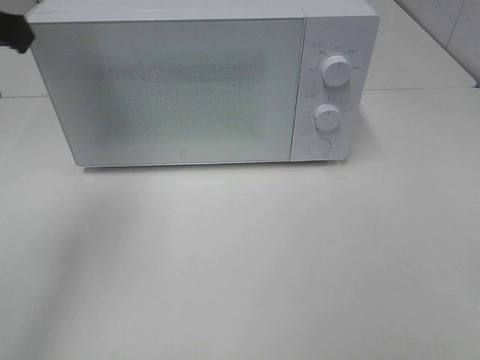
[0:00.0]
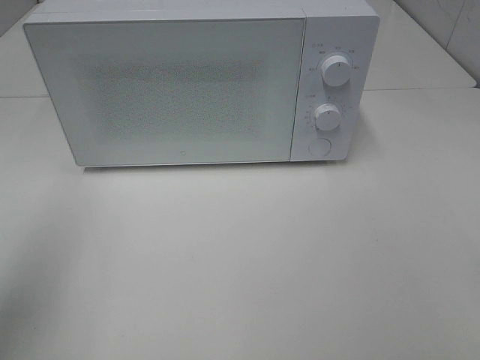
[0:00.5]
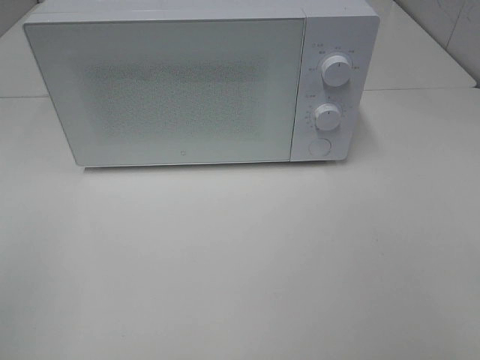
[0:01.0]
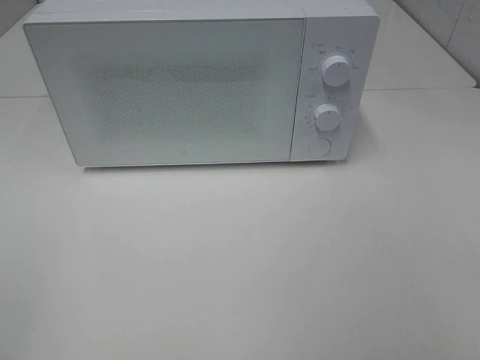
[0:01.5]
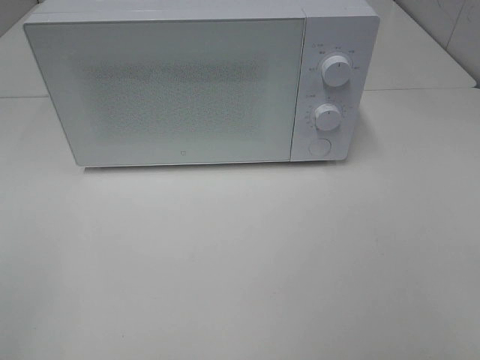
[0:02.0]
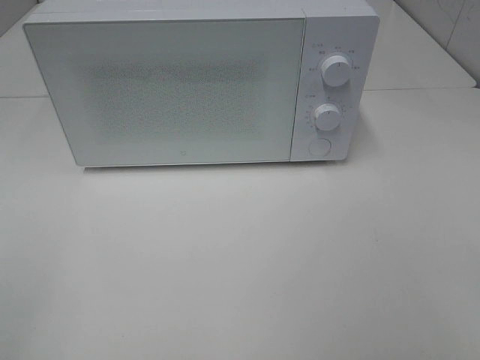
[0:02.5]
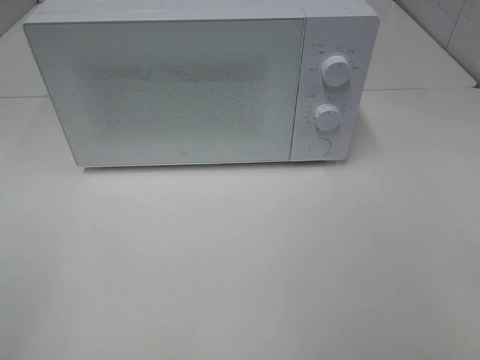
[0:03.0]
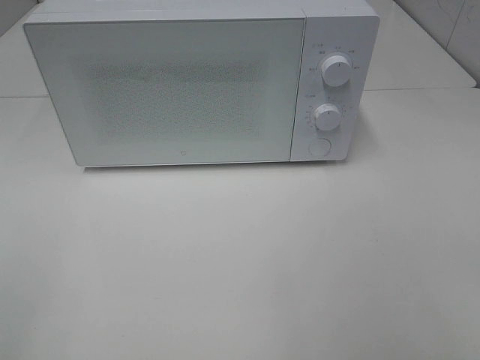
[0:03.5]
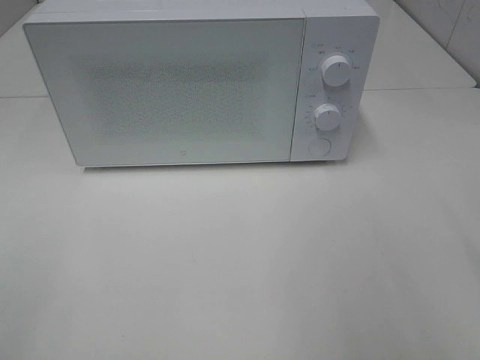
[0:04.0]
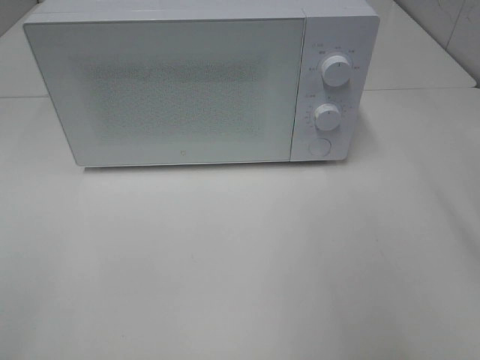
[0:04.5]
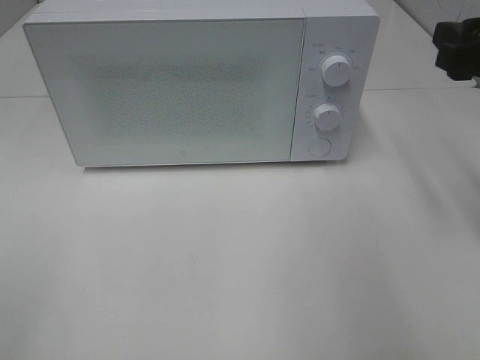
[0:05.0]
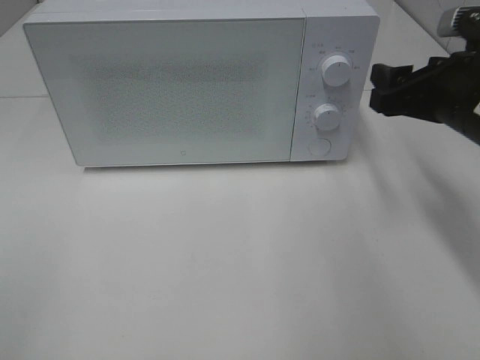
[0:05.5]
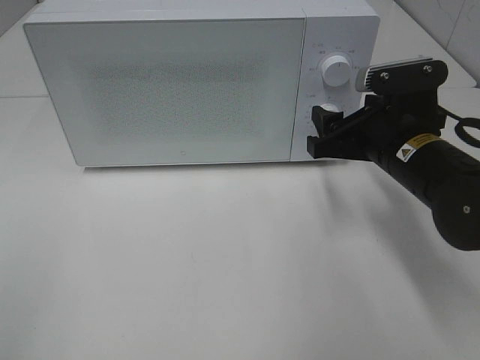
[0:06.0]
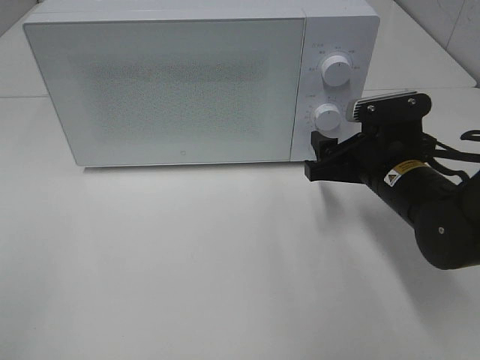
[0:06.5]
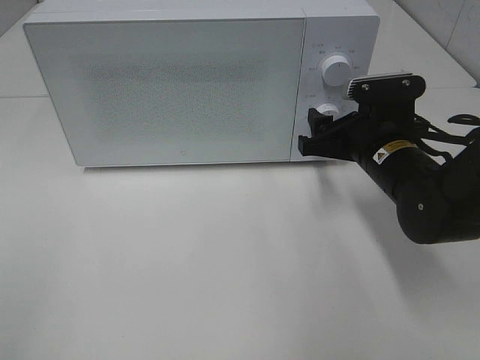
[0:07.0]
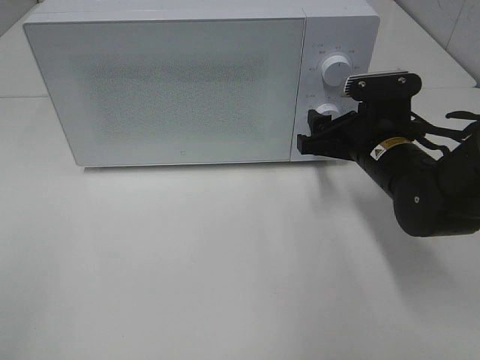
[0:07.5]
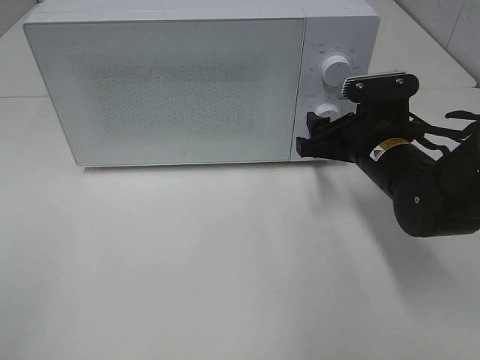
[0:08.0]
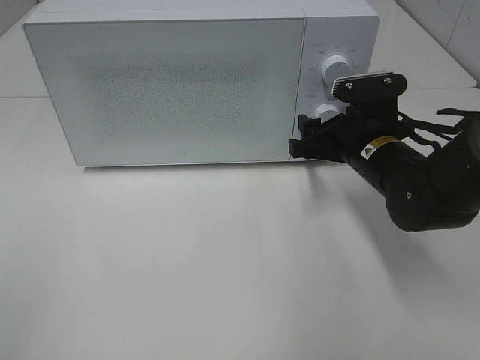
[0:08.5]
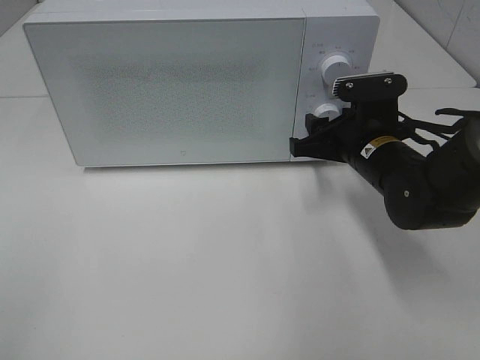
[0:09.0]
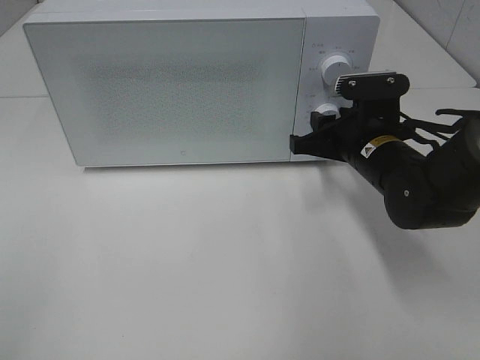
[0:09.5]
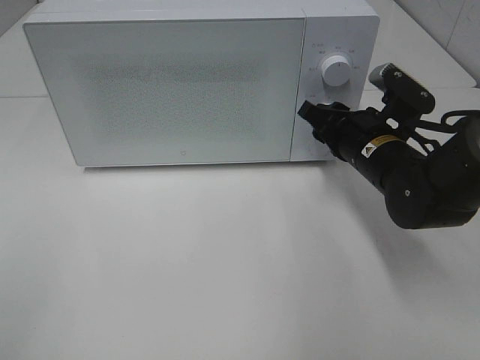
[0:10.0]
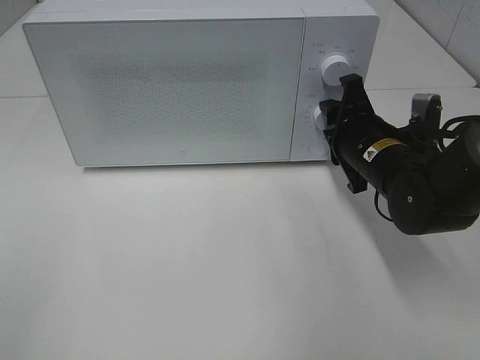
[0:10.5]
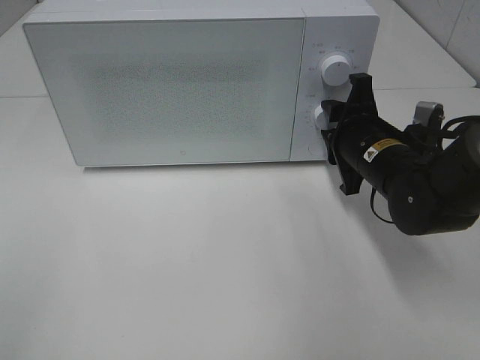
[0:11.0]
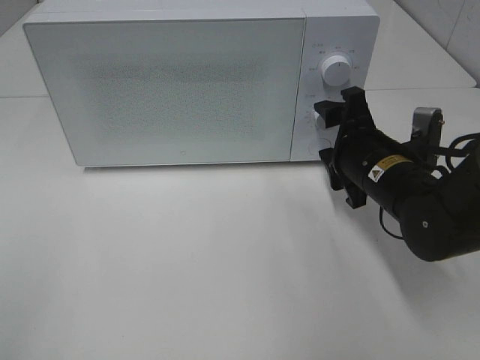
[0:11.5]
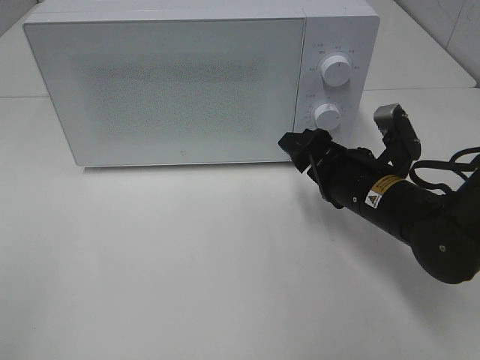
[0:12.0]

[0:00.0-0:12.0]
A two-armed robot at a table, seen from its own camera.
Task of the whole recording: Heat the burger.
Step, 0:00.0 to 0:11.0: Right hand: twist timer button.
0:00.0 to 0:02.0: The left gripper is displaced backward by about 30 cm.
0:04.0 to 0:06.0: The right gripper travels forward, downward and to the left by about 25 cm.
0:06.0 to 0:08.0: The grippers stay close to where they were, moving slightly.
0:08.0 to 0:10.0: The right gripper closes its fingers.
0:10.0 to 0:12.0: The right gripper changes place by approximately 5 cm, and opens its fingers.

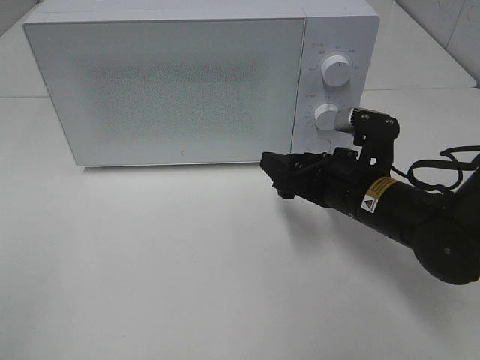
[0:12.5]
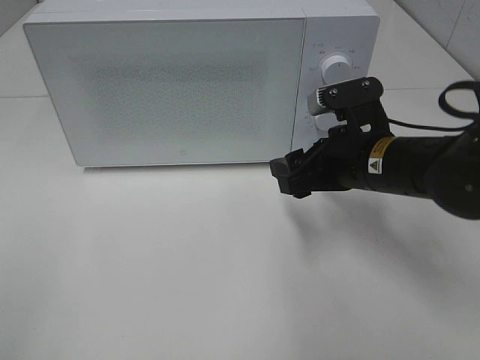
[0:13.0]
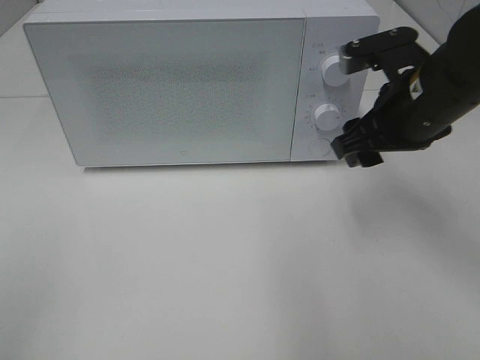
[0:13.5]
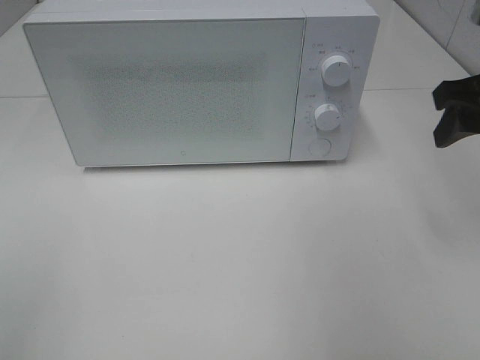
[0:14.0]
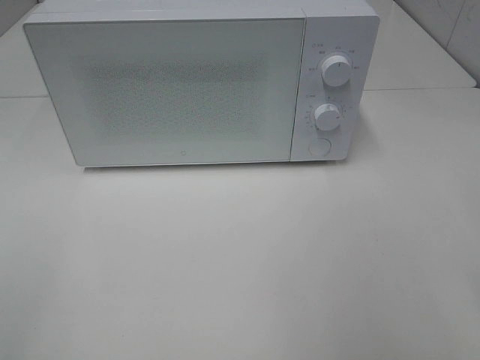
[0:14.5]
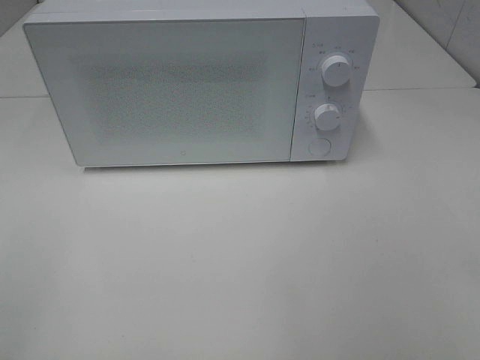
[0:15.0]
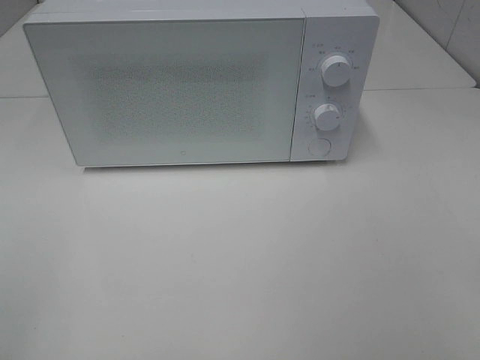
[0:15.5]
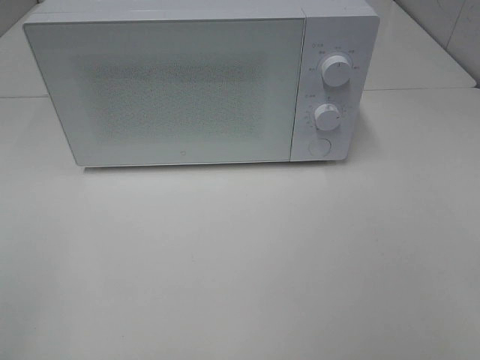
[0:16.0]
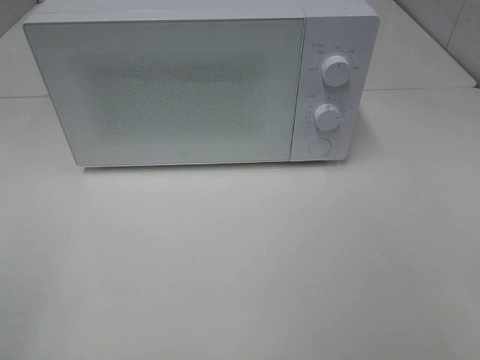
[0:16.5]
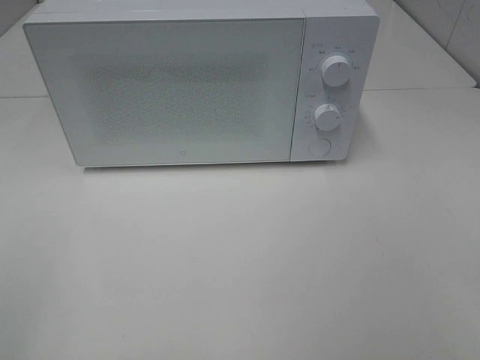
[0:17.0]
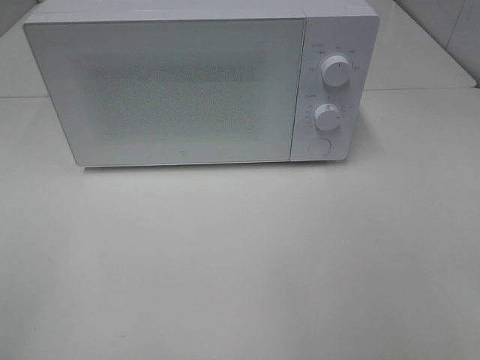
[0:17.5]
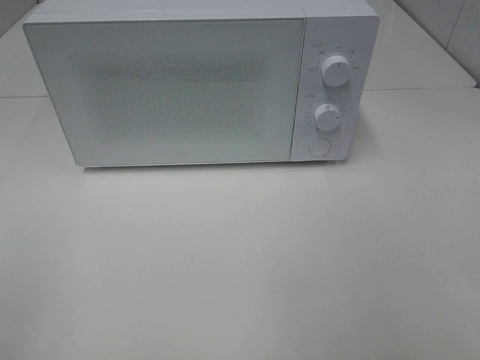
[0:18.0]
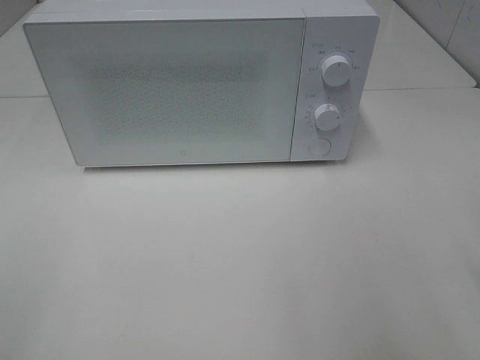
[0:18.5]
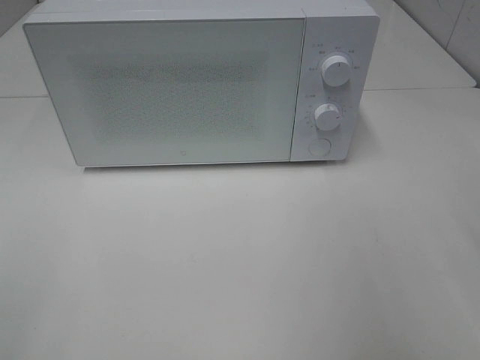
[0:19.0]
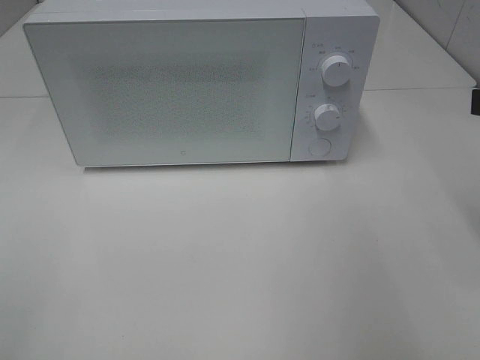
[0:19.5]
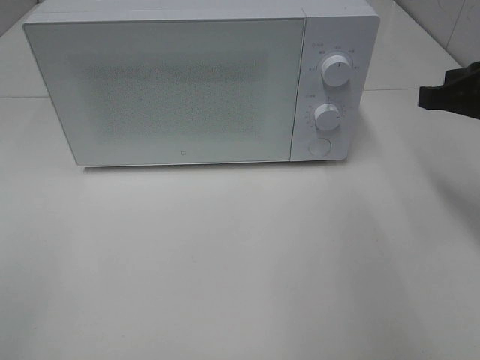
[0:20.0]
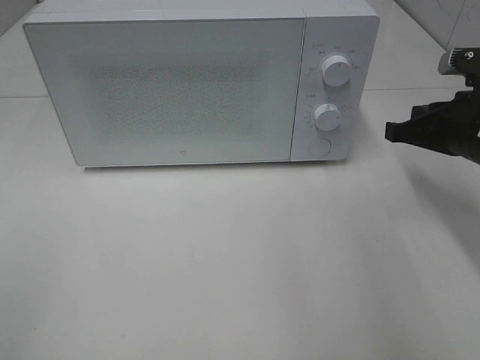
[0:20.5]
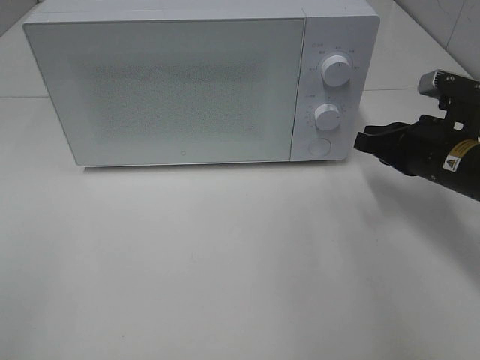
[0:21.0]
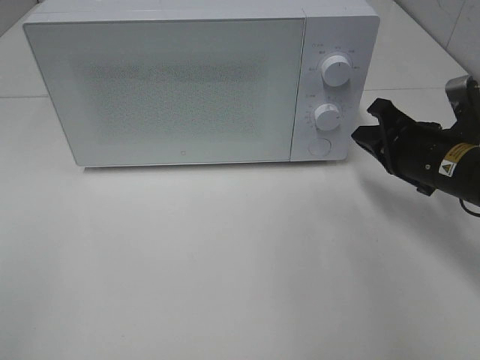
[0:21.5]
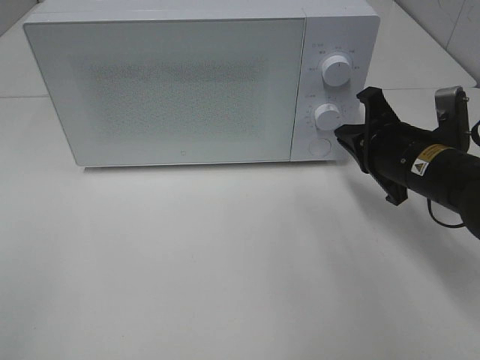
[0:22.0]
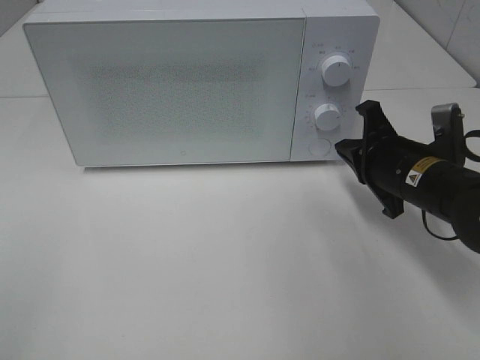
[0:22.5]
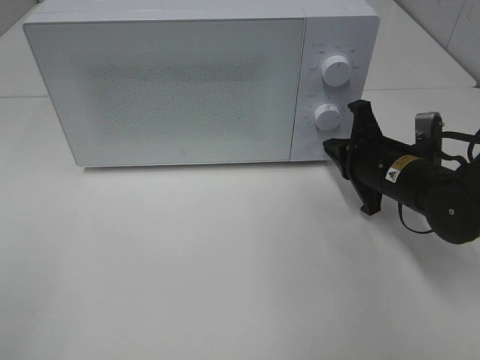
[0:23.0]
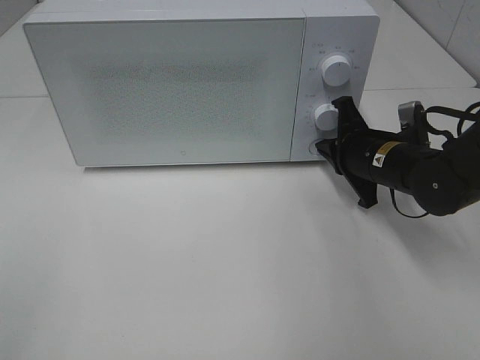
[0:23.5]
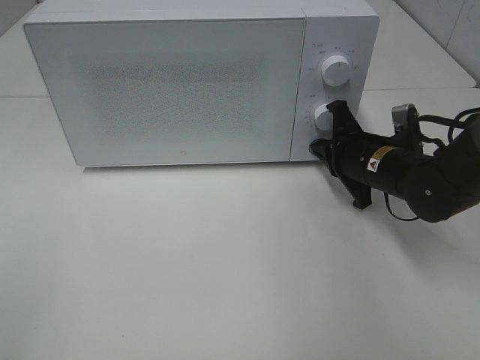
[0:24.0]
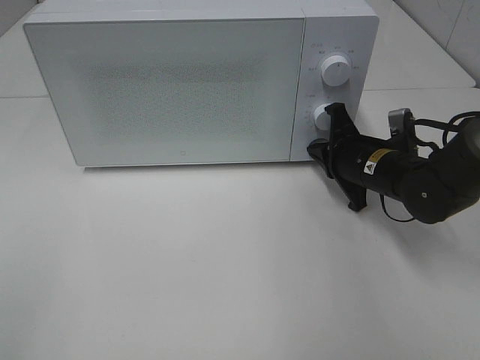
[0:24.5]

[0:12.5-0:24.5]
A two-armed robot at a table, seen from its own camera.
Task of the whole recording: Heat the burger.
0:12.5 to 0:14.5: The right gripper shifts about 25 cm upward, backward and to the right.
0:18.5 to 0:20.5: The right gripper moves forward and downward, approximately 20 cm, and closes.
0:20.5 to 0:22.5: The right gripper is displaced to the left and downward by about 10 cm.
0:22.5 to 0:24.5: The right gripper heads forward, covering roughly 5 cm.

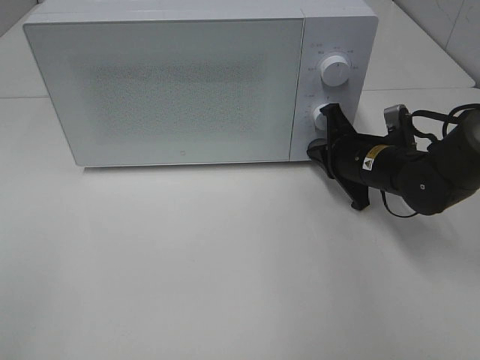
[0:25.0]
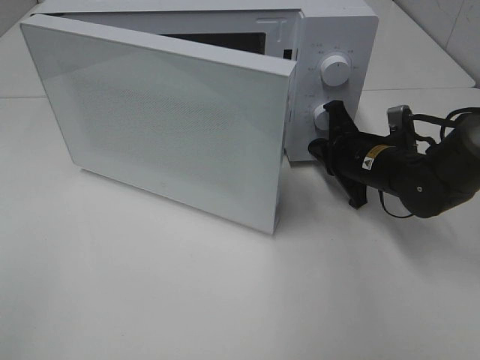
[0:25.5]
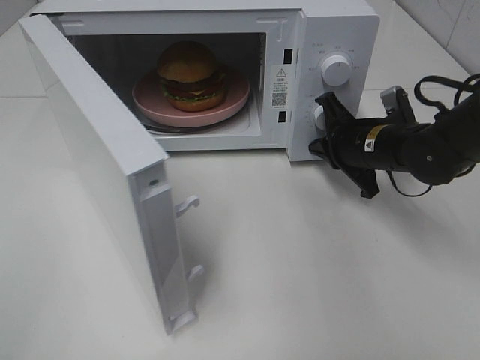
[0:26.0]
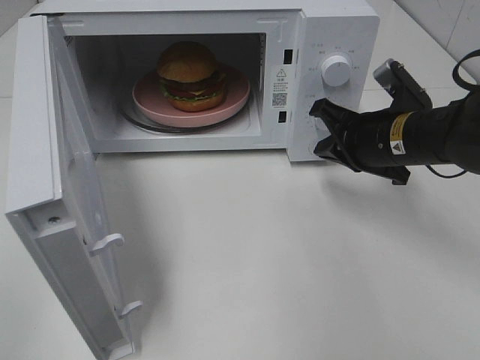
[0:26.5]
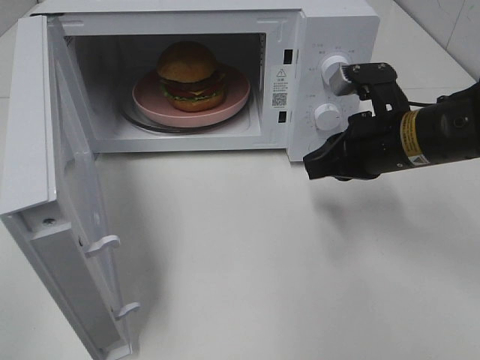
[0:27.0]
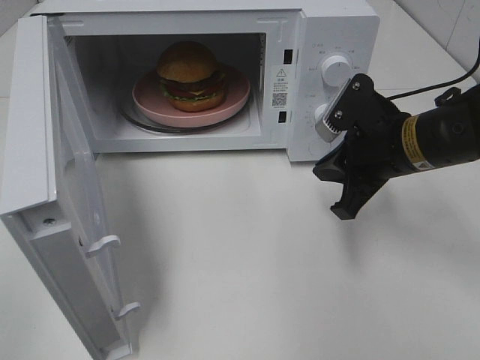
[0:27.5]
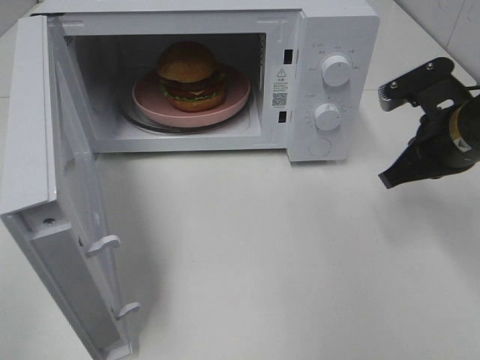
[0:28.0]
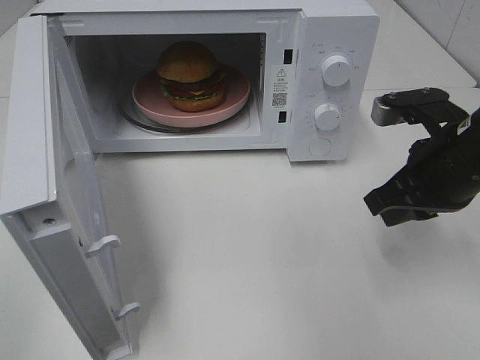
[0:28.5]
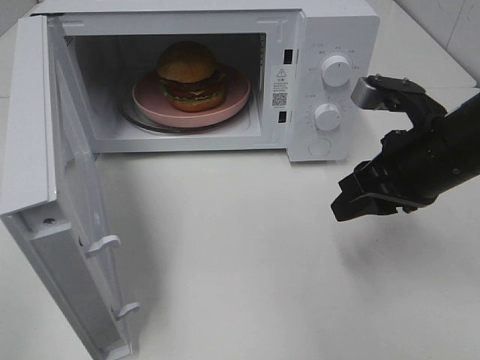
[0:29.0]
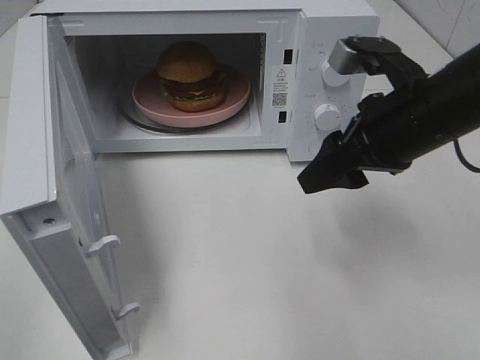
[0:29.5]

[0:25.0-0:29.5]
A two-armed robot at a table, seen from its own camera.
Task of the whole recording: Heat the burger.
0:25.0 to 0:27.0: The right gripper shifts about 10 cm upward and backward.
0:27.0 to 0:29.5: The right gripper goes approximately 5 cm upward, and opens its fingers.
